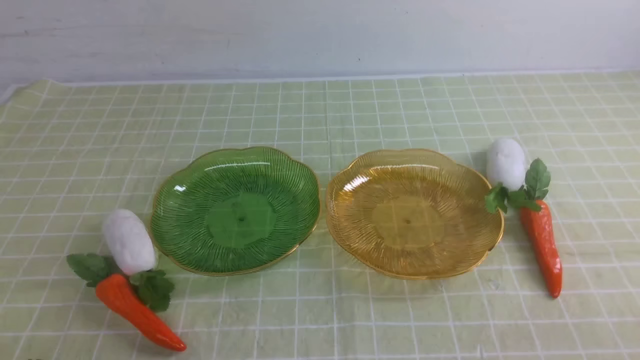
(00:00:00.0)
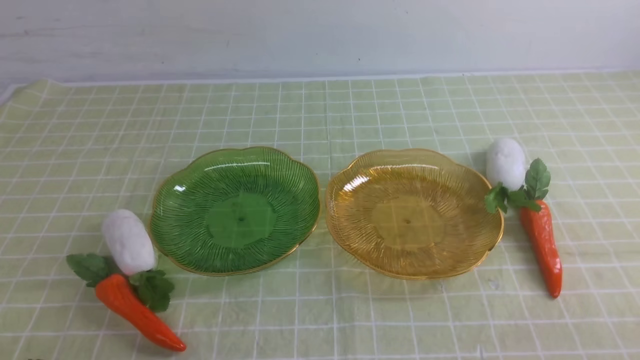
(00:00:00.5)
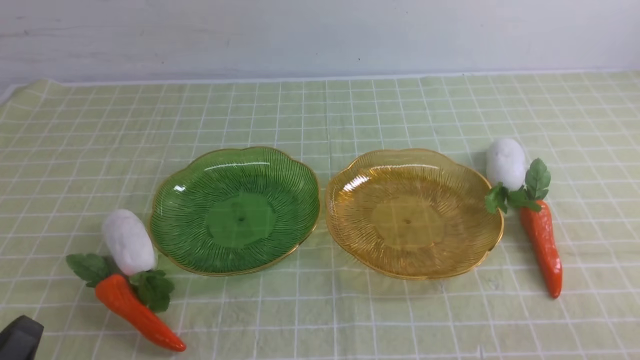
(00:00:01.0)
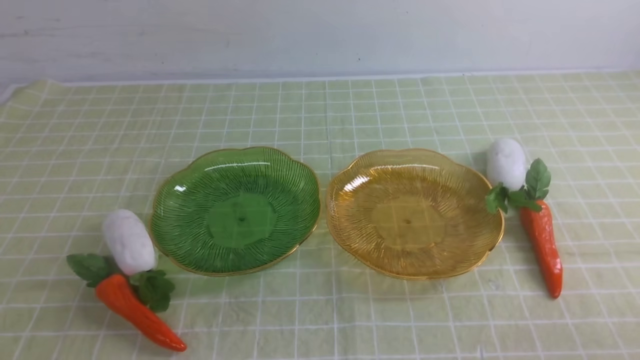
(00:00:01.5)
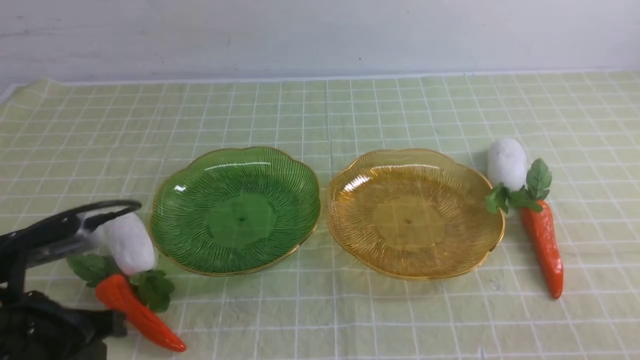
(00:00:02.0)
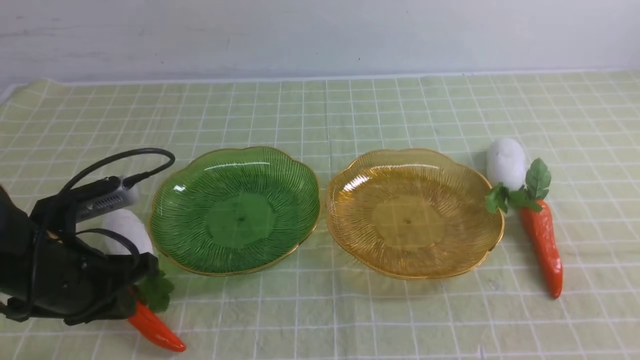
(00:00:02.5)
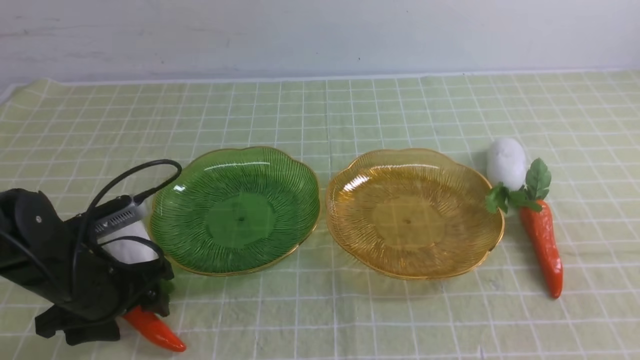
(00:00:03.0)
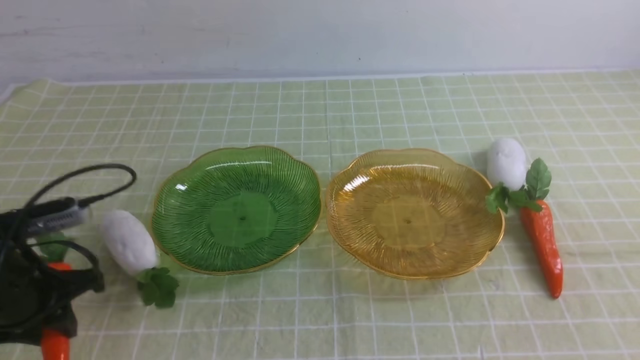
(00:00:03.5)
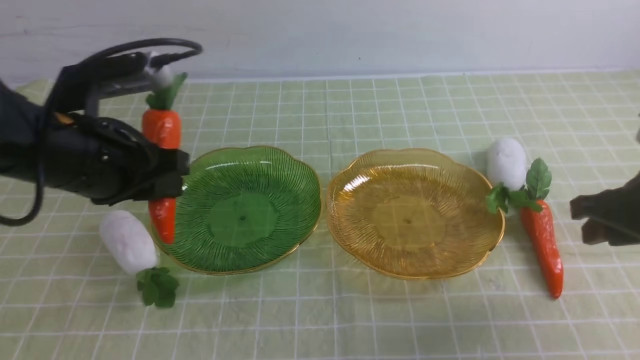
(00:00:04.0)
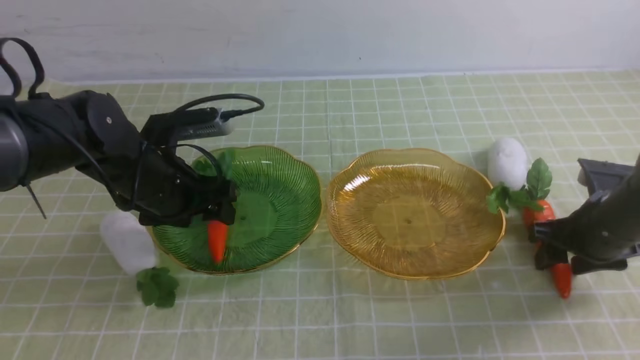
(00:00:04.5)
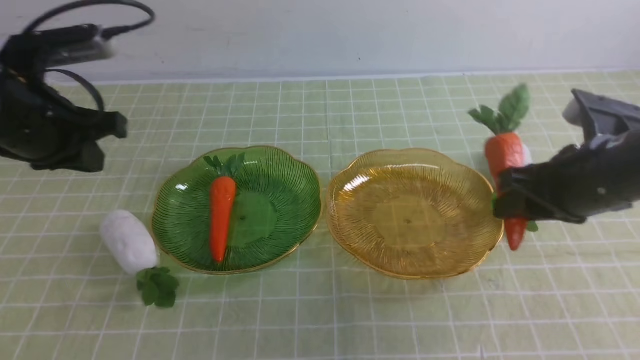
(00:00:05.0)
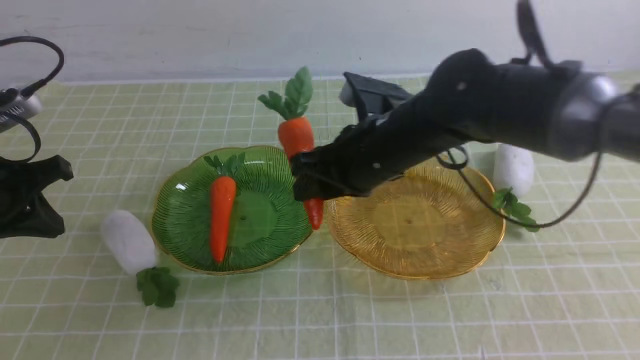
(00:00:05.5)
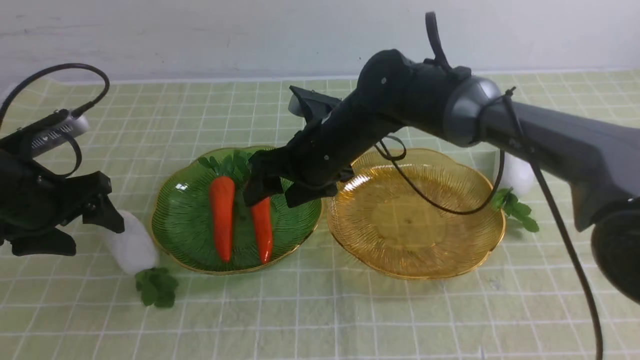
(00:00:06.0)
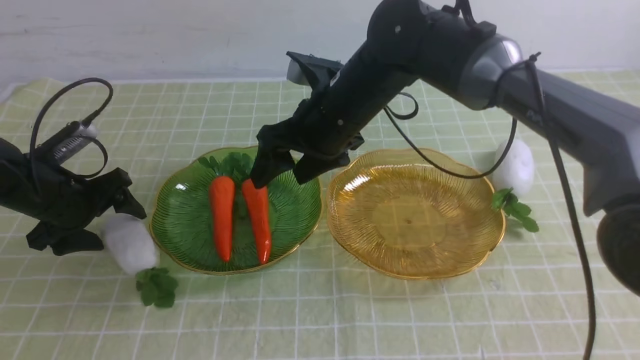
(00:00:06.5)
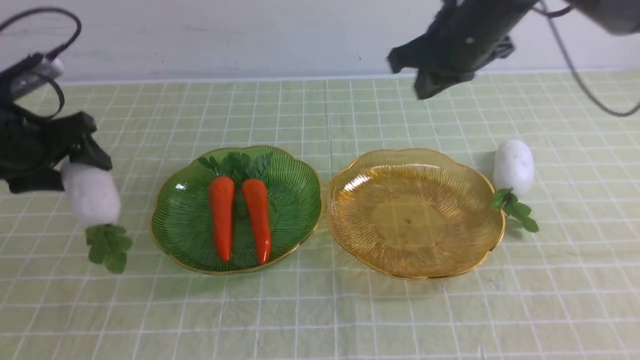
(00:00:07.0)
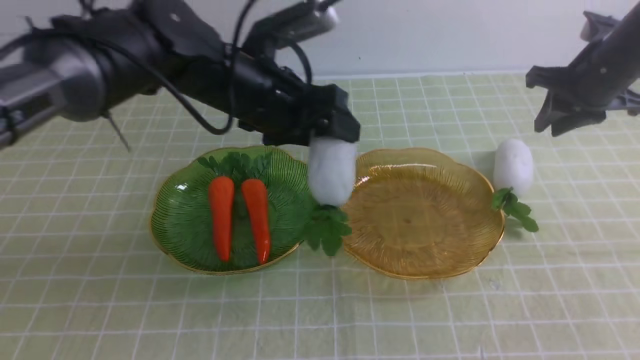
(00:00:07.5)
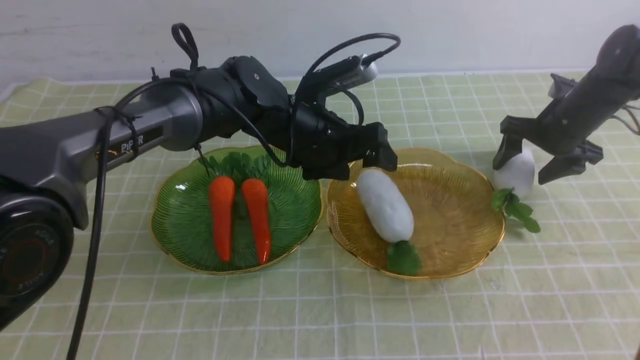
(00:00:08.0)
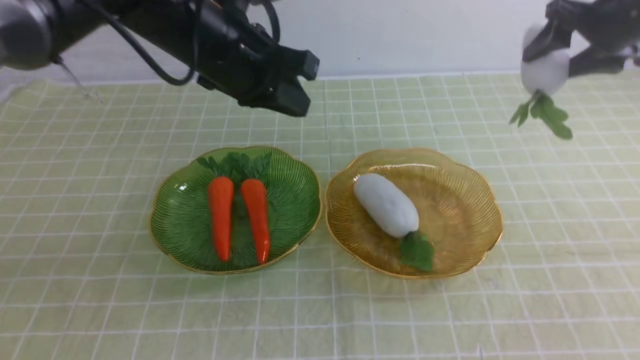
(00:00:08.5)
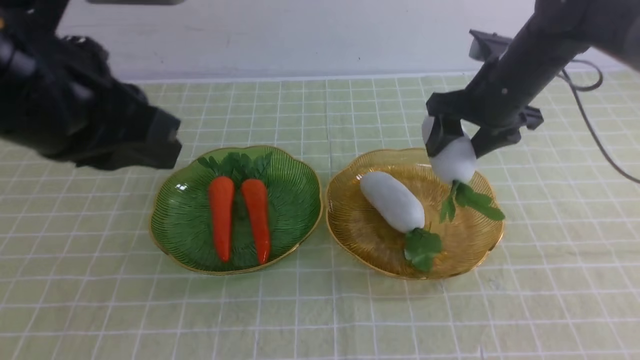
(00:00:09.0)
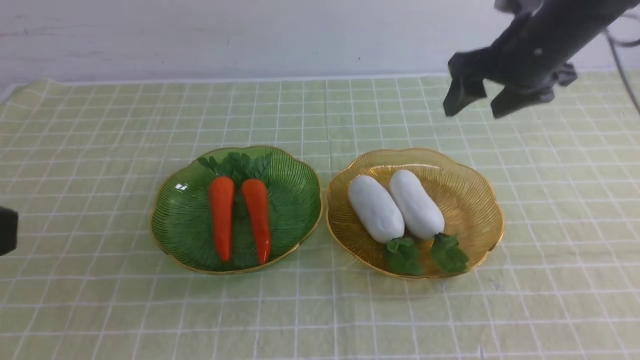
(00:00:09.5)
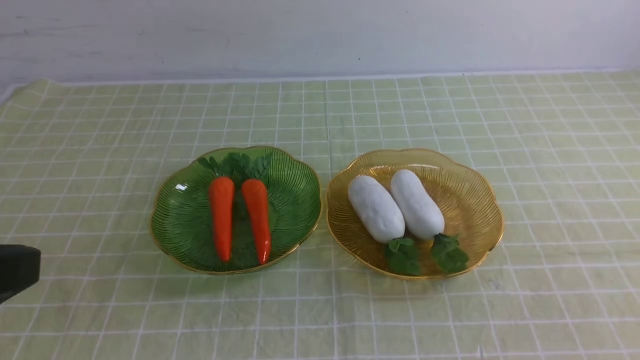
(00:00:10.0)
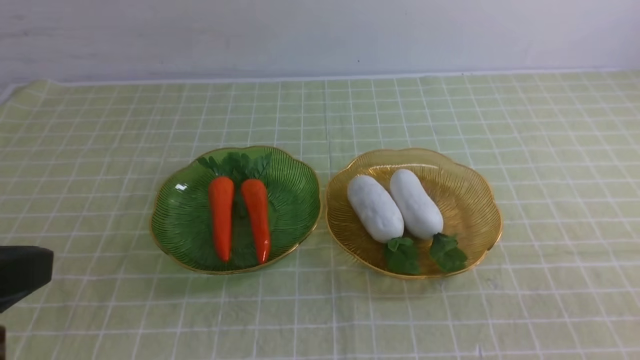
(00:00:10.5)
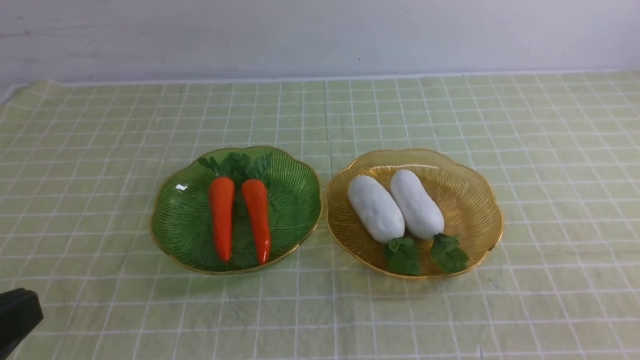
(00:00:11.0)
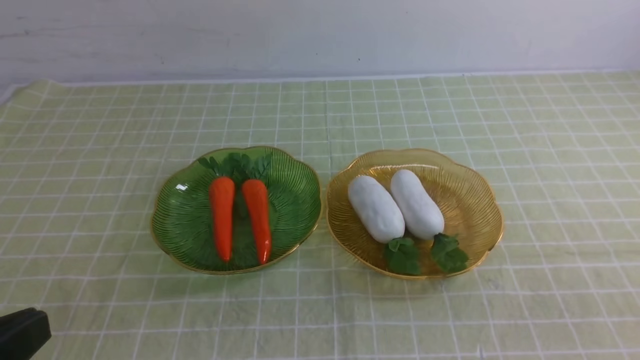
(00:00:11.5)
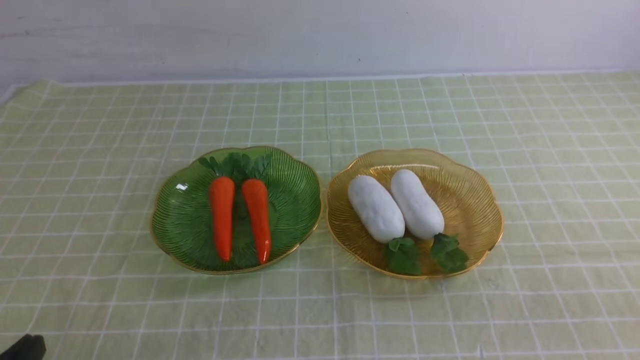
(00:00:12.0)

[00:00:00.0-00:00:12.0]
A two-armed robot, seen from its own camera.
Step, 00:00:00.0 to 00:00:05.0: use the left arm to grab a carrot and put it into the left plate.
Step, 00:00:05.5 to 00:00:06.5: use the right arm to grab a carrot and put it into the left plate.
Step, 00:00:07.0 to 00:00:08.5: use the left arm to grab a radish and put it into the right plate.
00:00:00.0 to 00:00:02.0: The left gripper is displaced forward and upward by some 15 cm.
00:00:02.0 to 00:00:04.0: The left gripper goes roughly 10 cm forward, and opens its fingers. Meanwhile the right gripper is displaced forward by roughly 20 cm, and opens up.
00:00:04.0 to 00:00:06.0: The left gripper travels to the left and downward by roughly 10 cm, and opens up. Meanwhile the right gripper travels to the left by roughly 30 cm, and opens.
00:00:06.0 to 00:00:08.0: Both grippers move to the right, approximately 30 cm. The right gripper closes and opens again.
00:00:08.0 to 00:00:10.0: The left gripper travels backward, to the left and upward by some 40 cm, and closes its fingers. Meanwhile the right gripper is displaced backward and upward by some 50 cm, and closes.
00:00:10.0 to 00:00:12.0: The left gripper shifts about 20 cm downward.

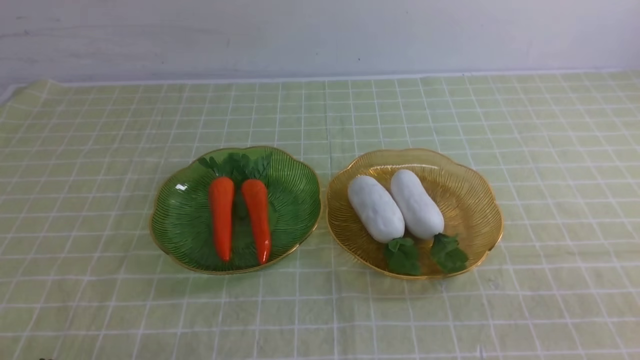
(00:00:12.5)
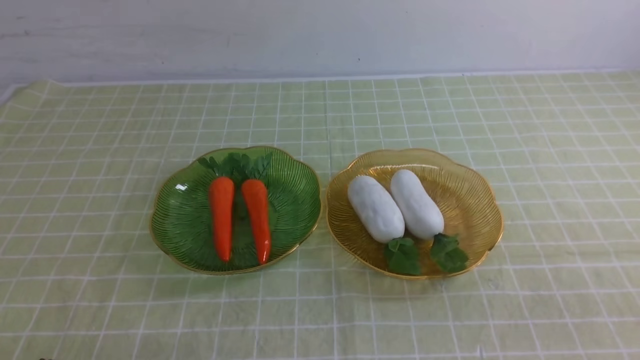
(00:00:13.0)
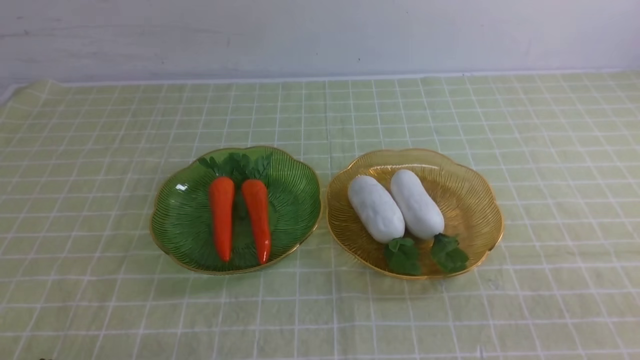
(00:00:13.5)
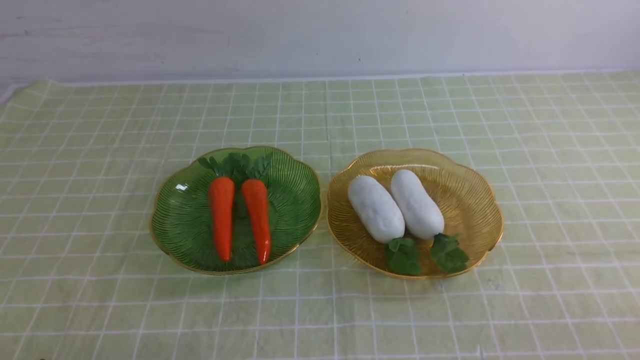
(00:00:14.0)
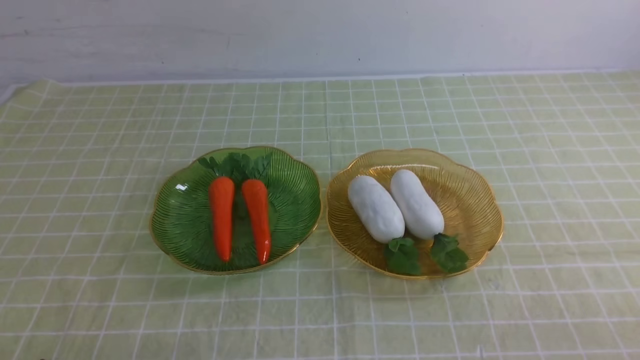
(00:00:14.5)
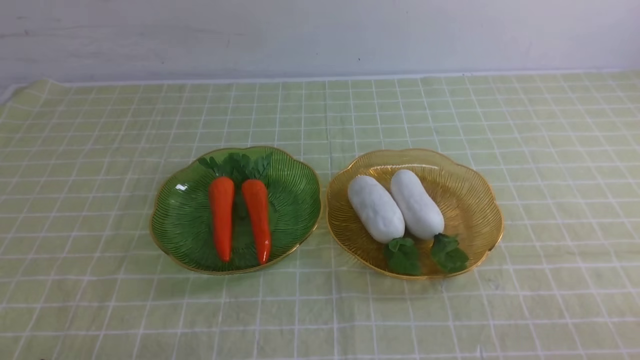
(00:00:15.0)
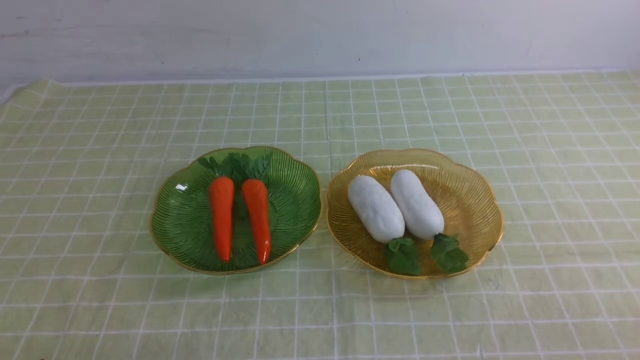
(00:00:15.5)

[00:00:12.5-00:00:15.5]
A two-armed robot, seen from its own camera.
00:00:14.0 to 00:00:15.5: Both grippers stay put.
